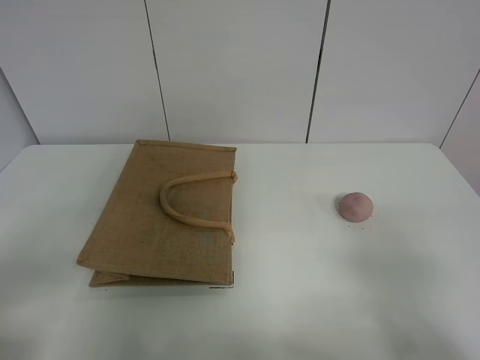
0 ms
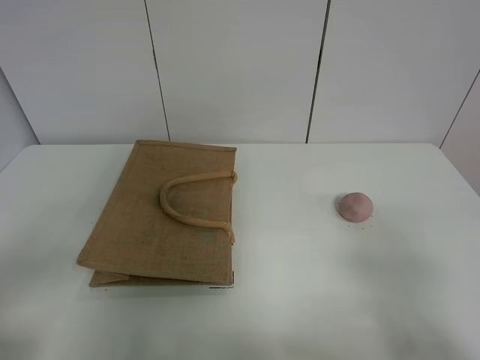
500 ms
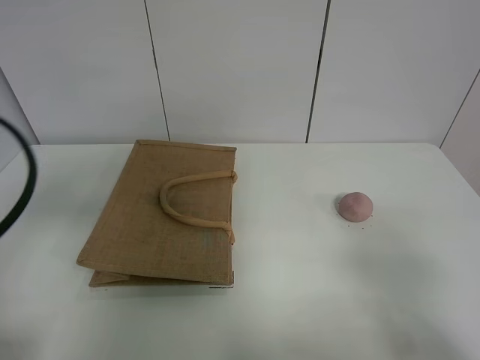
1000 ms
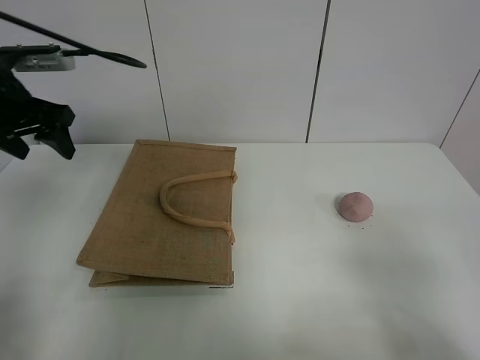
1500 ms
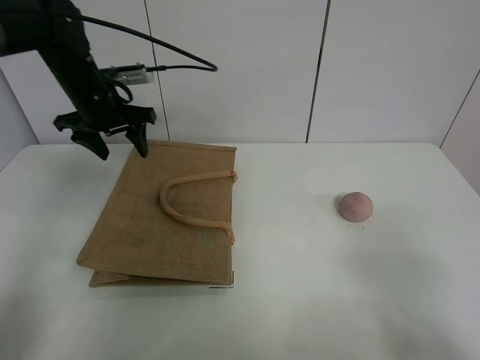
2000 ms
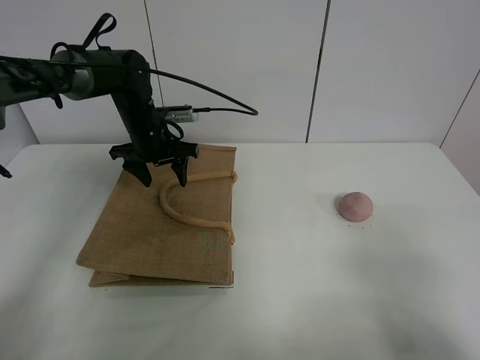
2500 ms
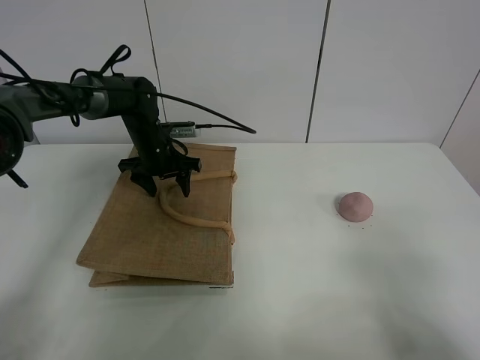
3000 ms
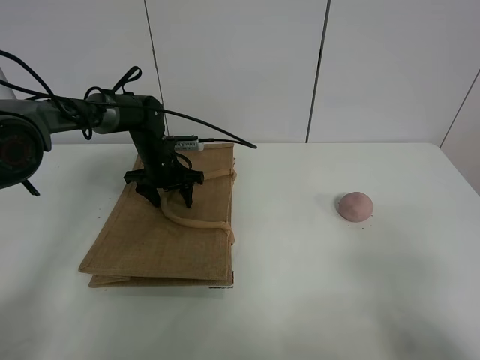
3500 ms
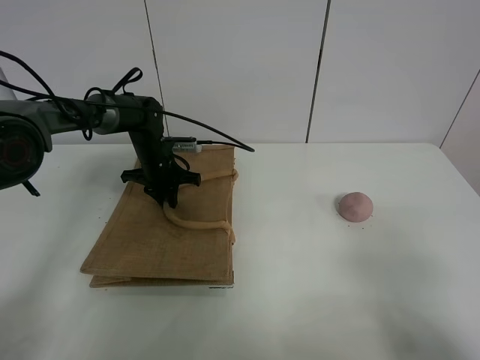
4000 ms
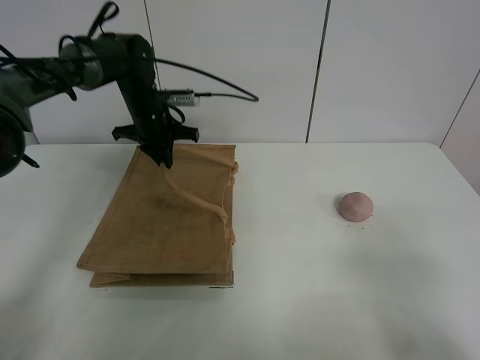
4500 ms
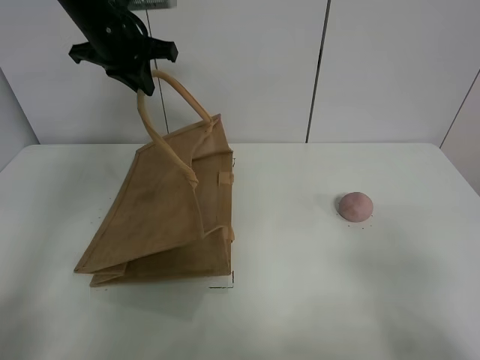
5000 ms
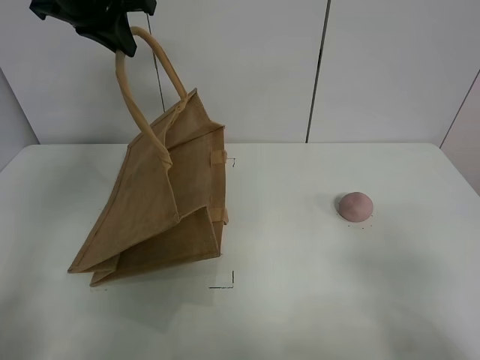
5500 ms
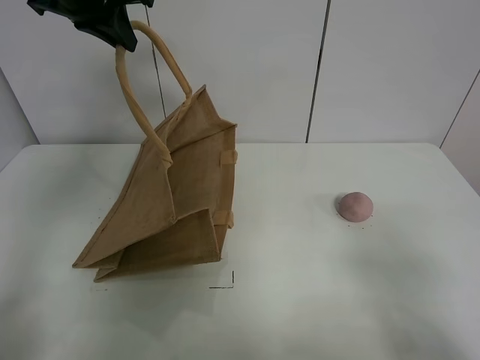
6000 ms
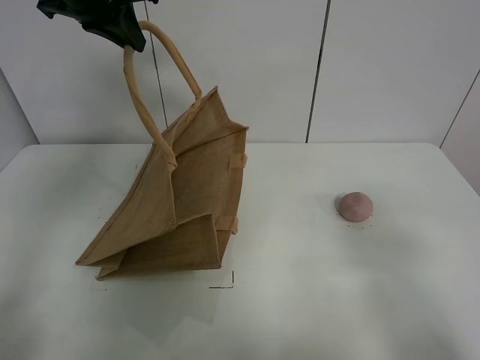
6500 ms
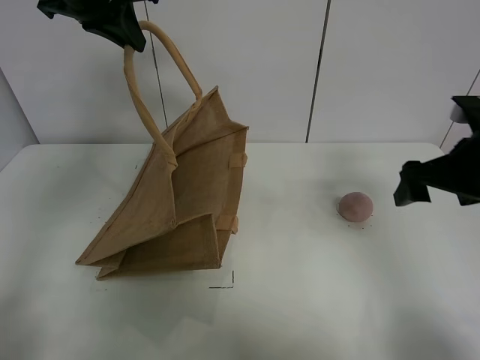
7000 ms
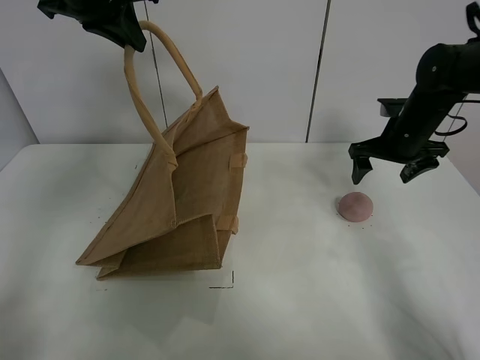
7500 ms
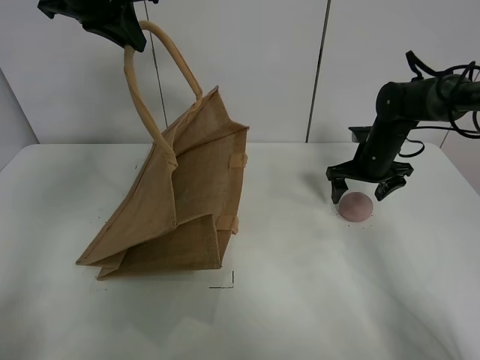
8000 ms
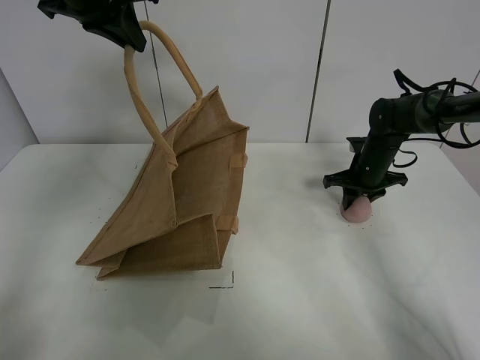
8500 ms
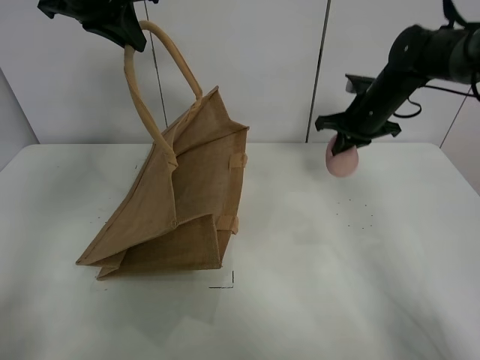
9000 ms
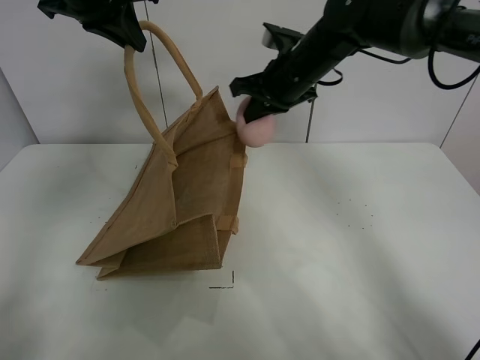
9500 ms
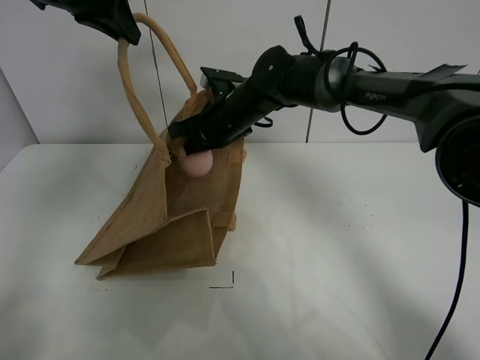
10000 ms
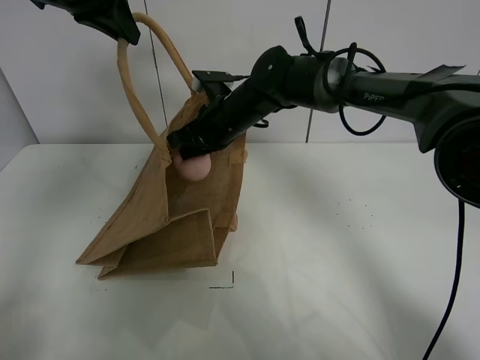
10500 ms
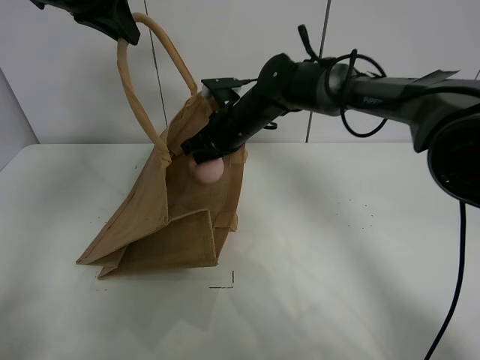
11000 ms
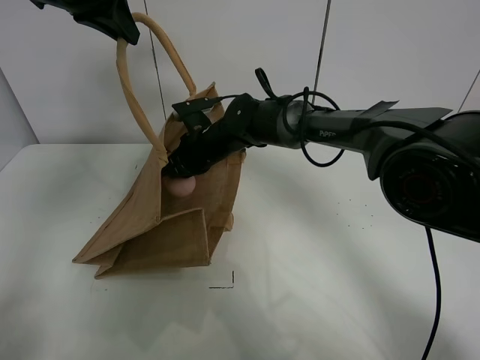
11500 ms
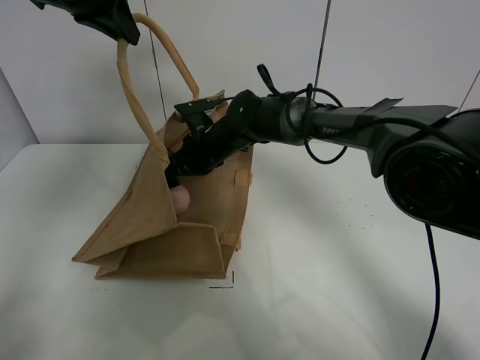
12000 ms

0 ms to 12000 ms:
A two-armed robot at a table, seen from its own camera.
Task of the whole recording: open the brown linen bag and put the peach in the bag.
Step, 0 ms to 5000 ms: Lift the handbag with left gripper.
Step, 5500 ms to 8500 ms: Grasp the peach with right gripper.
0 ms to 2000 ms: The left gripper travels forward by about 40 cm.
2000 ms to 4000 ms: The left gripper shifts some 15 cm downward, and closes up.
4000 ms to 6000 ms: The left gripper goes about 30 cm upward.
6000 ms to 8000 ms: The right gripper moves forward, some 40 cm.
8000 ms to 10000 ms: The right gripper goes some 25 cm to the left, and closes up.
10000 ms to 12000 ms: The right gripper ends up approximately 5 cm from where it was, and opens its fingers.

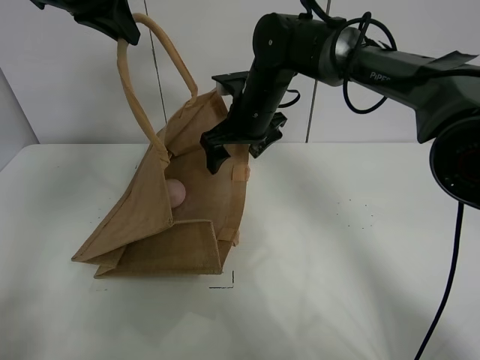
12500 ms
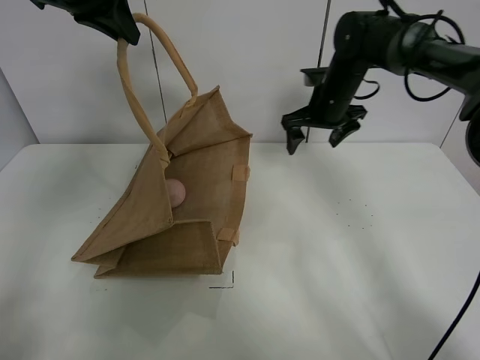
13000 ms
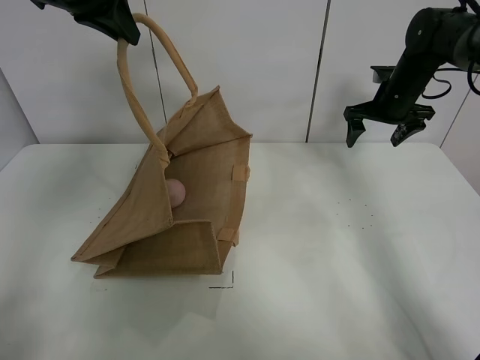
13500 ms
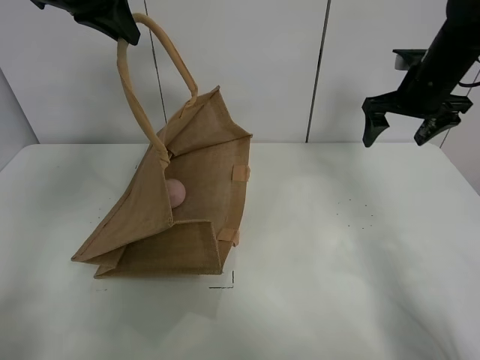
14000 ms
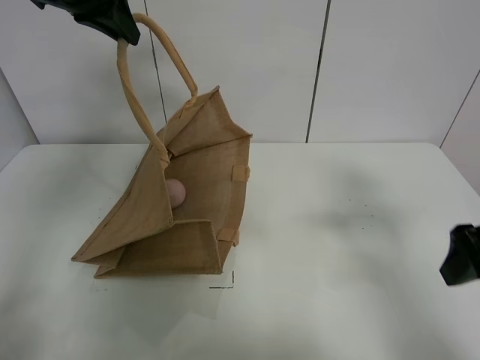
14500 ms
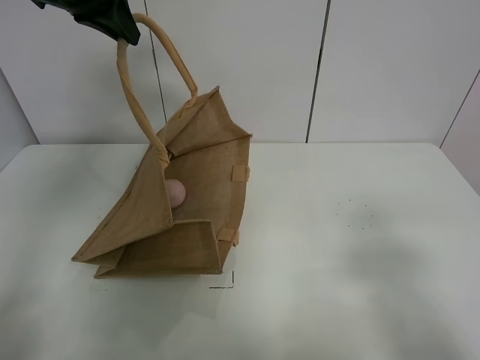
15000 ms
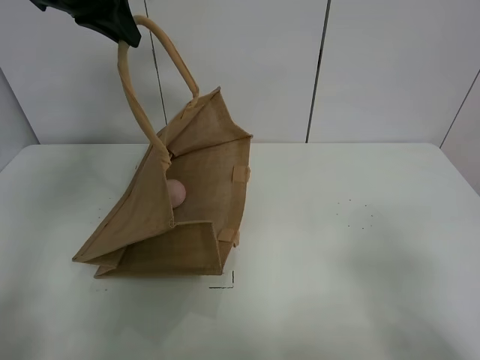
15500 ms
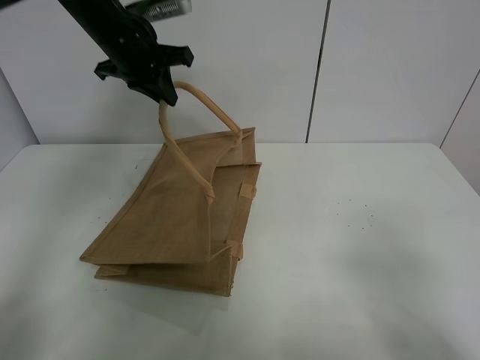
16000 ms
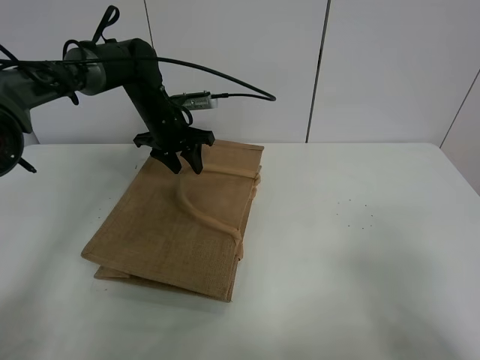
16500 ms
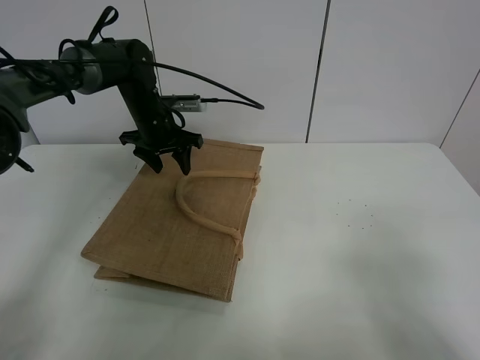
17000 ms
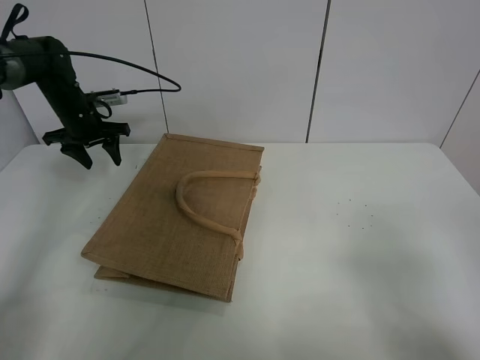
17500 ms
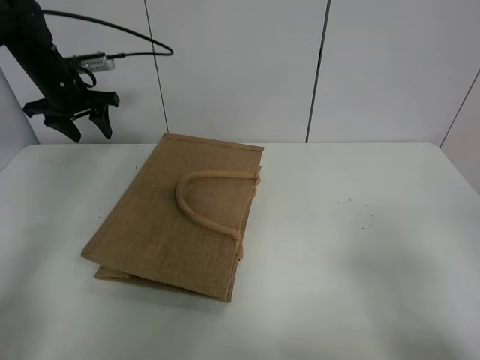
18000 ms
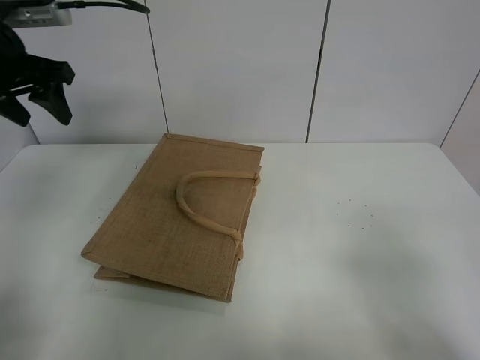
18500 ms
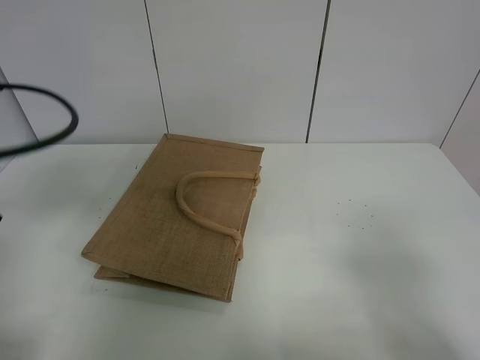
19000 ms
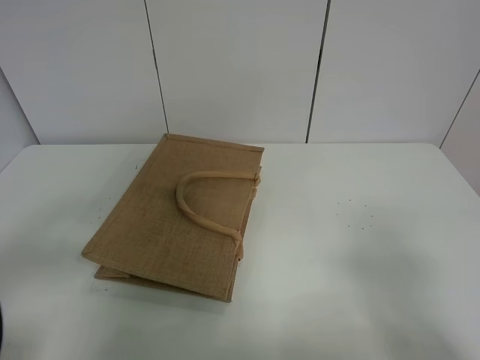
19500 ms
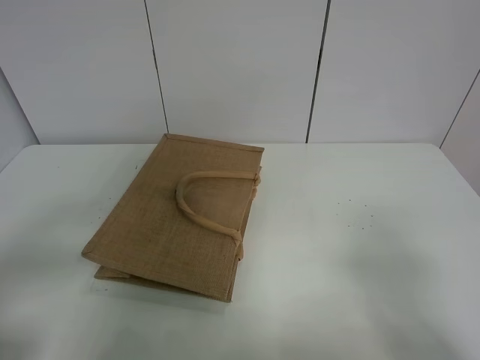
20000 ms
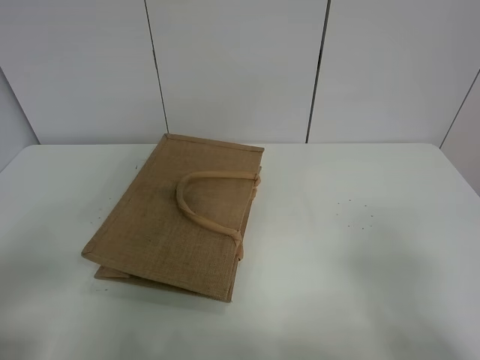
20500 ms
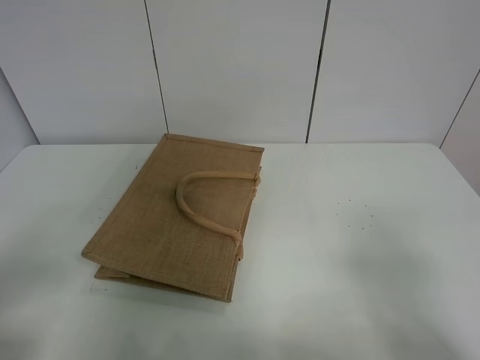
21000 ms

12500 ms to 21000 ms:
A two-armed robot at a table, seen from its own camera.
Task of the whole recording: open the brown linen bag and put the peach in the bag.
Step, 13000 ms to 17000 ms: Put down the handbag with left grippe.
12500 ms to 14500 ms: The right gripper travels backward and to the right by some 35 cm.
14500 ms to 16500 ms: The right gripper heads backward, covering about 15 cm, while the left gripper moves downward and forward, some 25 cm, and opens up.
16500 ms to 19000 ms: The left gripper heads backward and to the left, covering roughly 35 cm.
19000 ms to 21000 ms: The left gripper heads backward, covering some 15 cm.

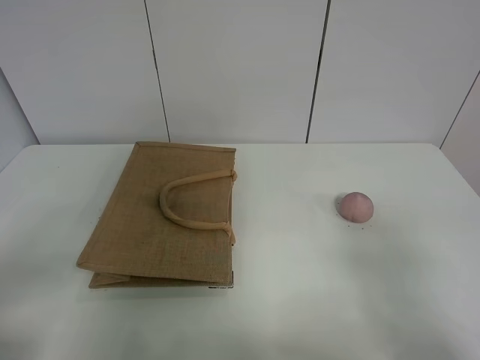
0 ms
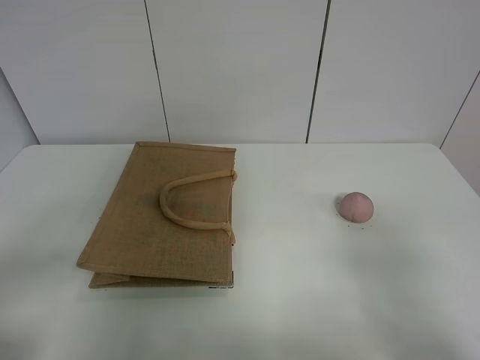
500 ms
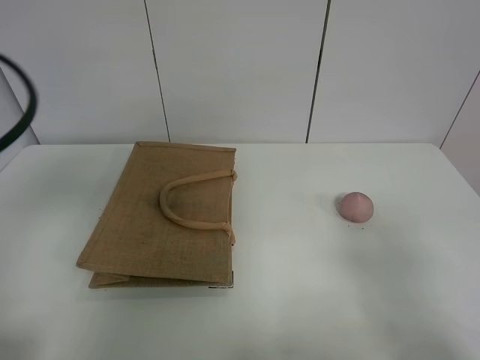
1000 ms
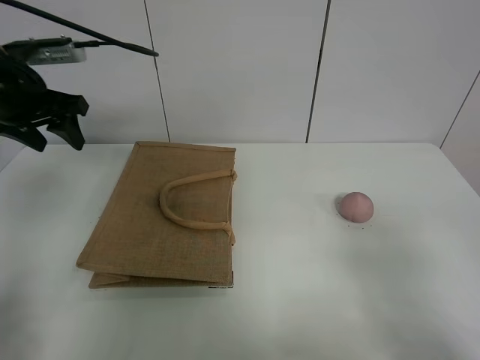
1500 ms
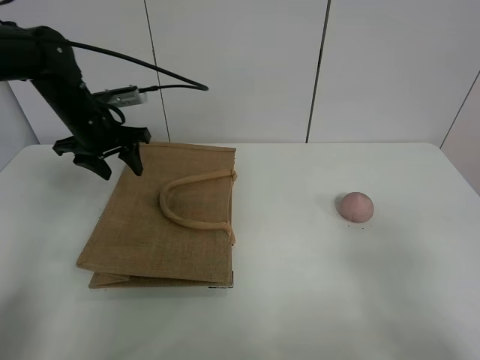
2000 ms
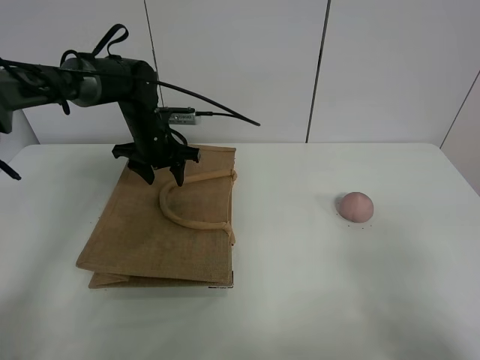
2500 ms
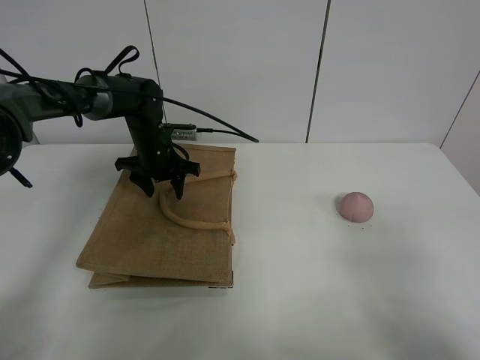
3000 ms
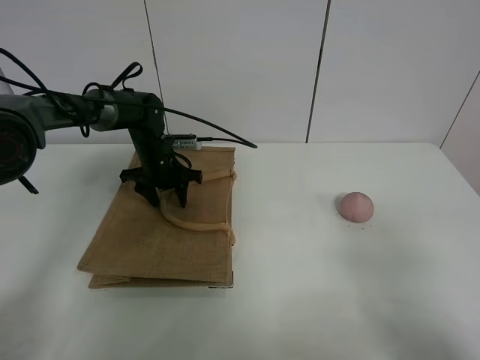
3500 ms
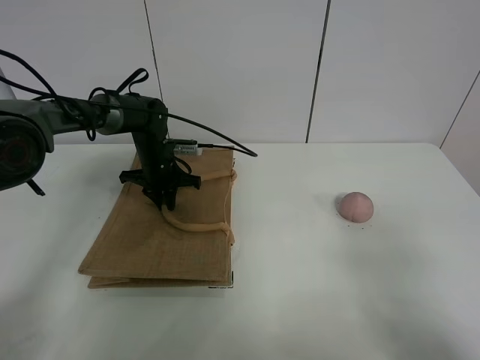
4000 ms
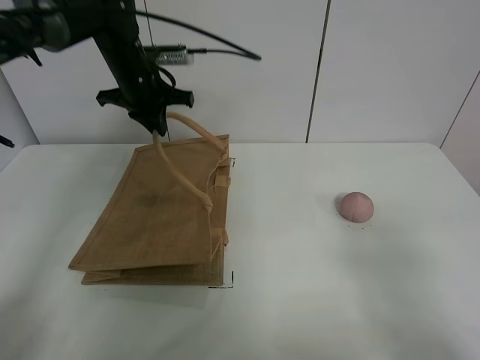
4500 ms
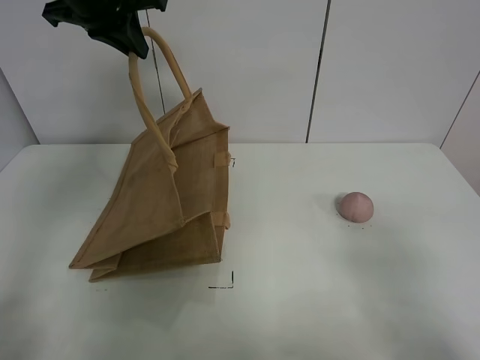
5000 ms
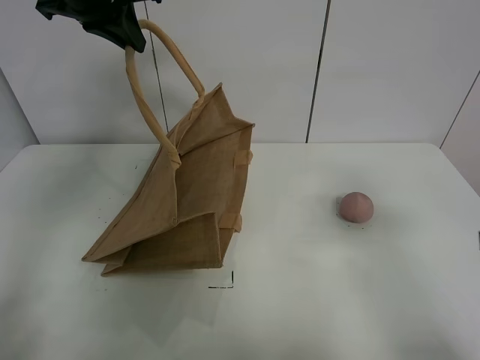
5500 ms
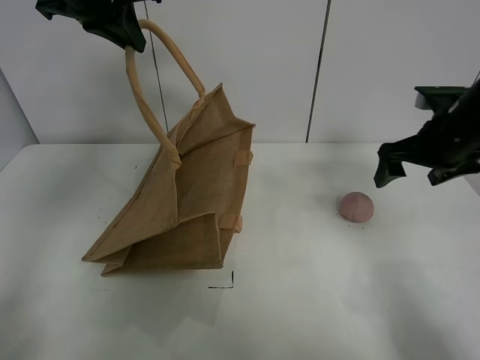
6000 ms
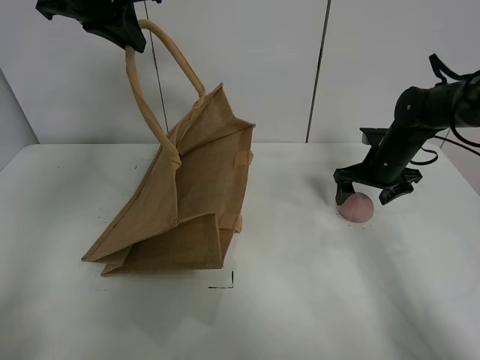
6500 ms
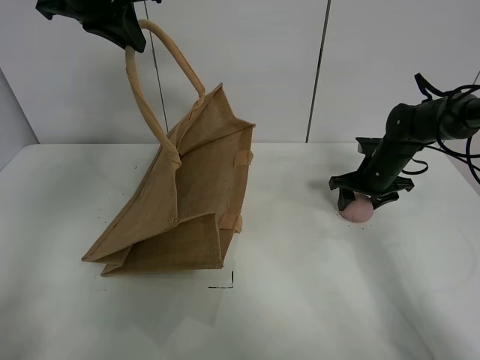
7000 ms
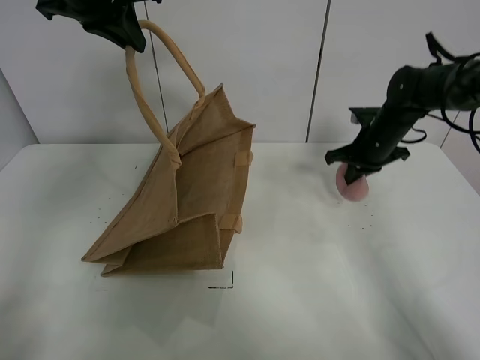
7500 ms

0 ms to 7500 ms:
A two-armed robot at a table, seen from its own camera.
Task of the whole recording: open the brown linen bag and put the peach in the bag.
Step, 0 ms to 5000 ms: Lift the handbag with left gripper.
Step, 5500 ms to 7000 ms: Grasp the peach with right gripper.
0 ms to 2000 ms: The left gripper heads forward, covering about 40 cm.
2000 ms to 4000 ms: The left gripper heads downward, to the right and forward, covering roughly 15 cm, and closes up.
4000 ms to 5500 ms: The right gripper moves forward, approximately 10 cm. Meanwhile the left gripper heads upward, covering roughly 30 cm.
5500 ms to 7500 ms: The right gripper moves forward, roughly 35 cm, and closes up.
